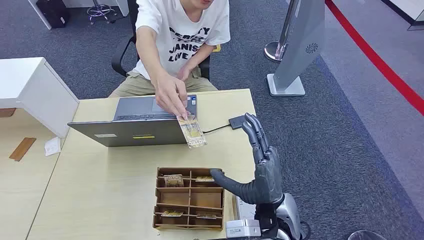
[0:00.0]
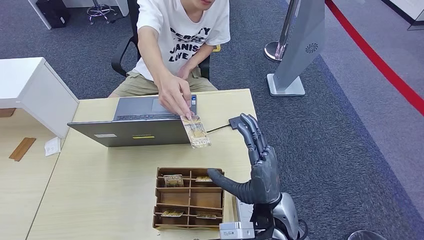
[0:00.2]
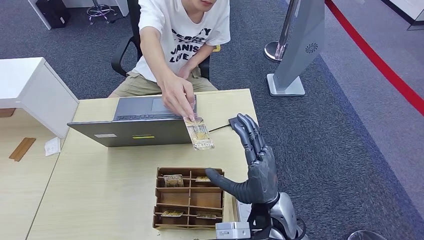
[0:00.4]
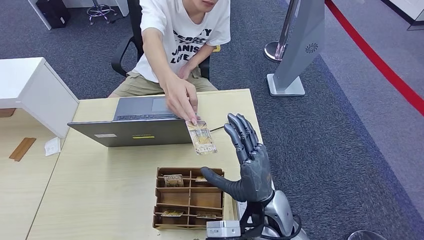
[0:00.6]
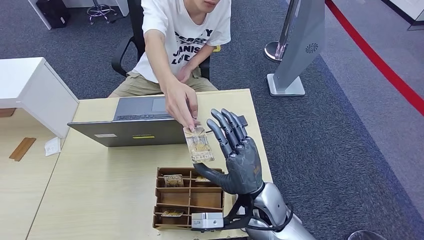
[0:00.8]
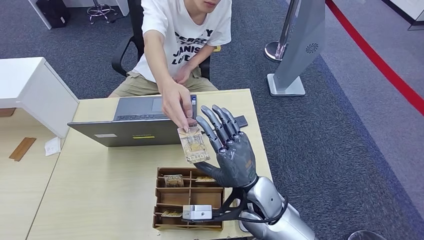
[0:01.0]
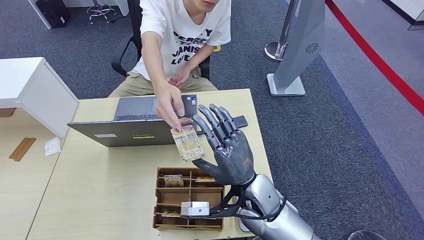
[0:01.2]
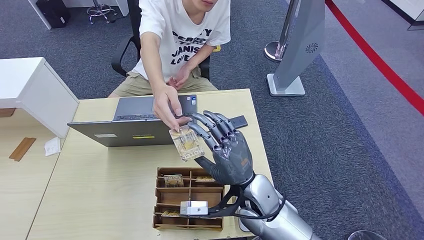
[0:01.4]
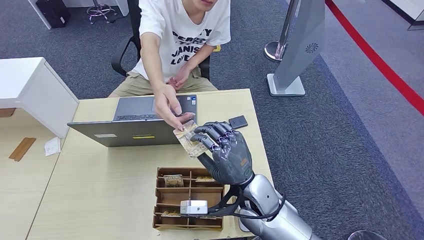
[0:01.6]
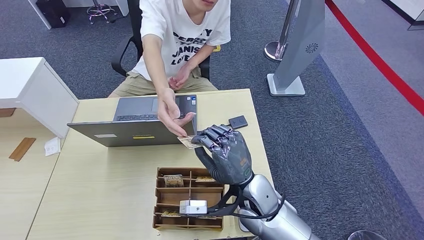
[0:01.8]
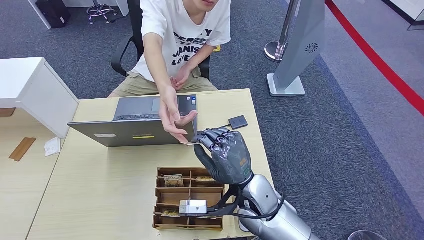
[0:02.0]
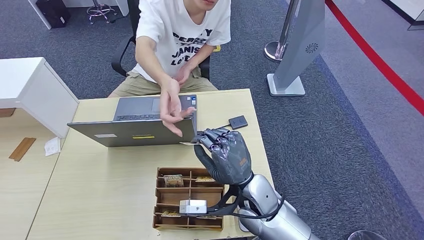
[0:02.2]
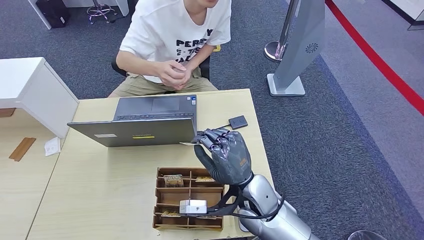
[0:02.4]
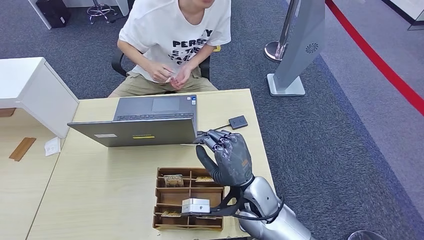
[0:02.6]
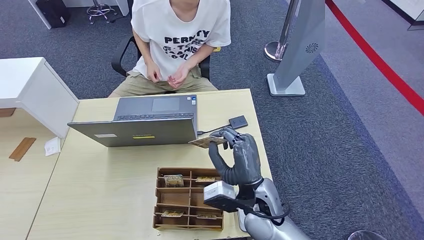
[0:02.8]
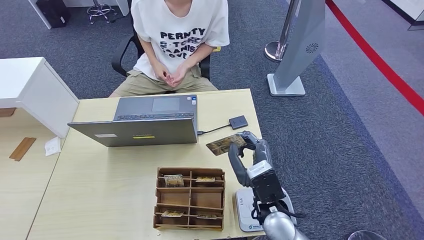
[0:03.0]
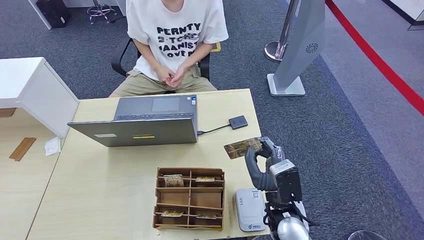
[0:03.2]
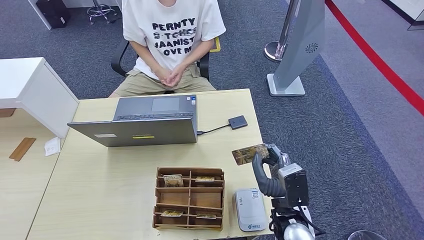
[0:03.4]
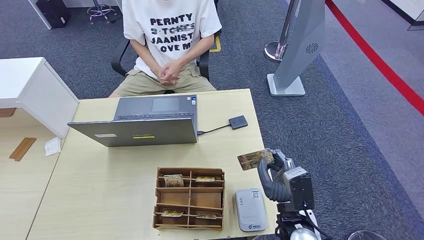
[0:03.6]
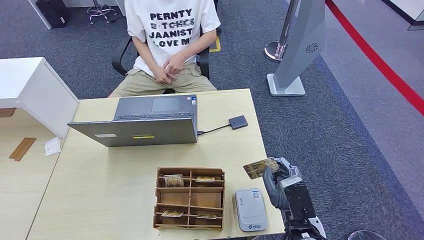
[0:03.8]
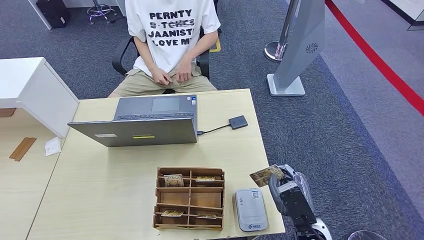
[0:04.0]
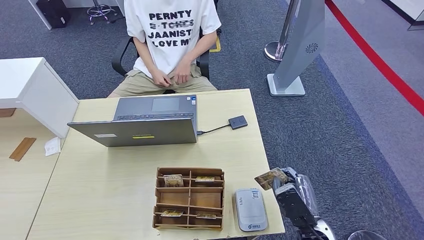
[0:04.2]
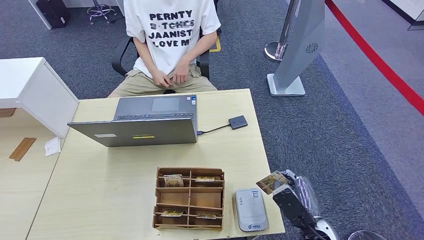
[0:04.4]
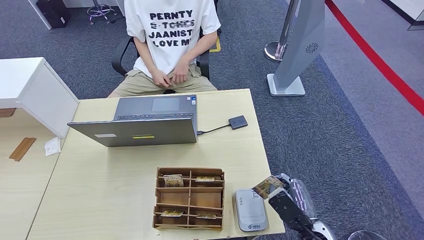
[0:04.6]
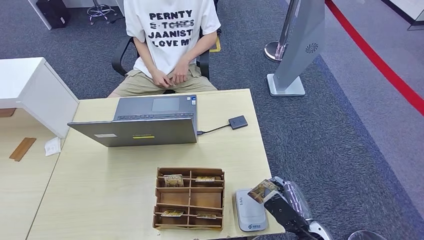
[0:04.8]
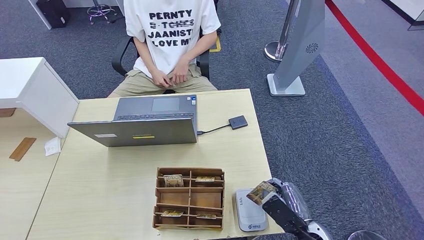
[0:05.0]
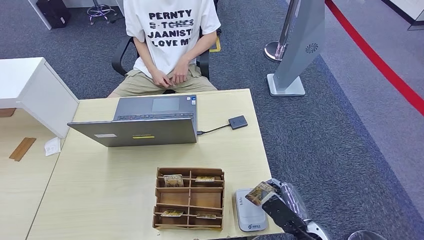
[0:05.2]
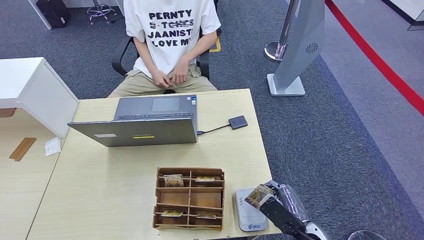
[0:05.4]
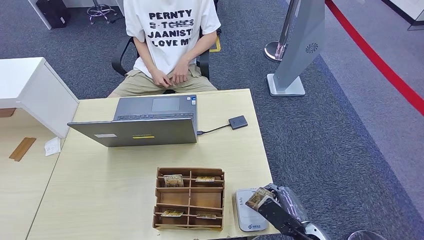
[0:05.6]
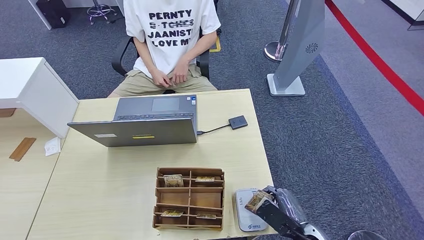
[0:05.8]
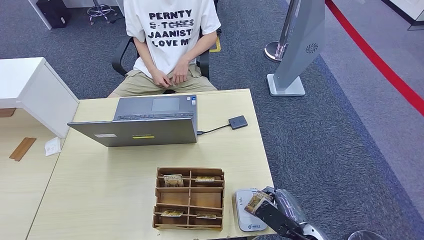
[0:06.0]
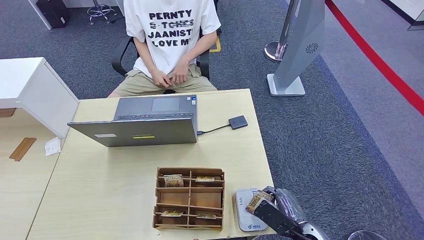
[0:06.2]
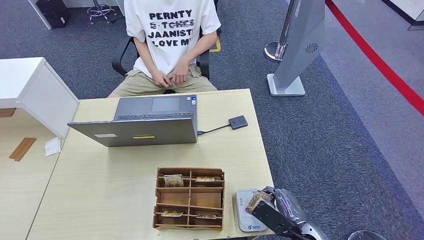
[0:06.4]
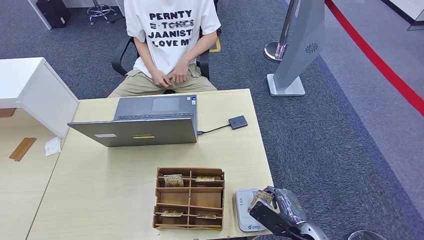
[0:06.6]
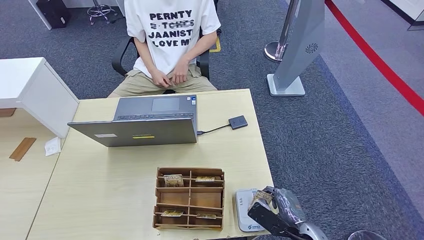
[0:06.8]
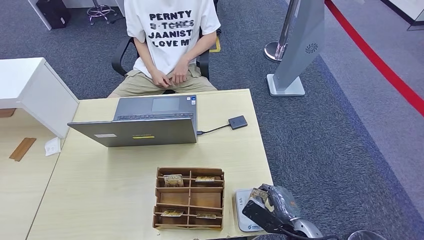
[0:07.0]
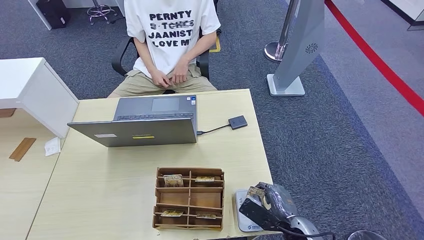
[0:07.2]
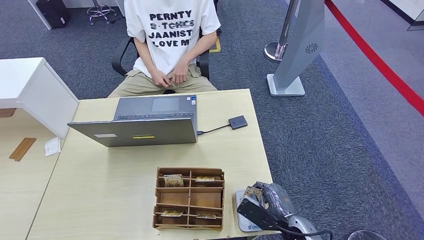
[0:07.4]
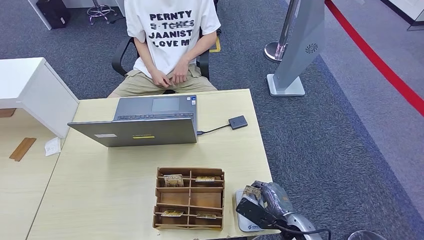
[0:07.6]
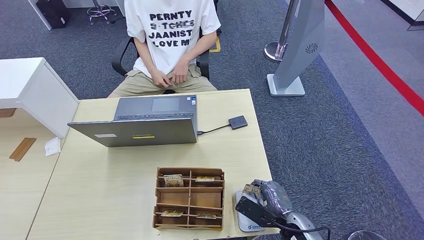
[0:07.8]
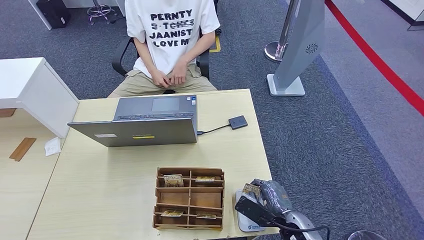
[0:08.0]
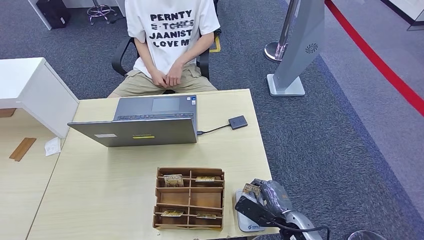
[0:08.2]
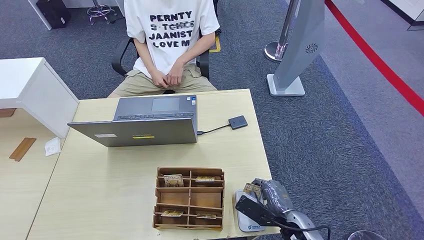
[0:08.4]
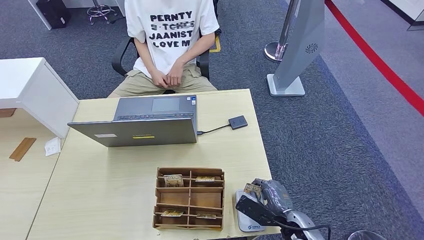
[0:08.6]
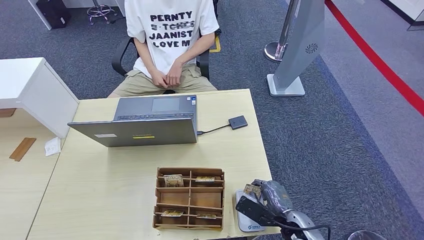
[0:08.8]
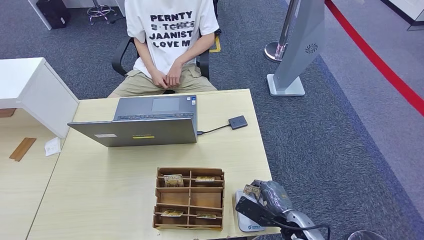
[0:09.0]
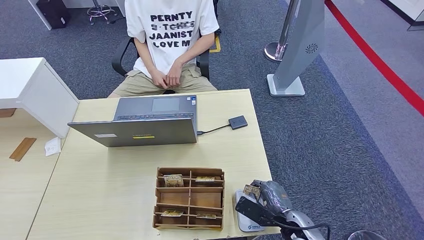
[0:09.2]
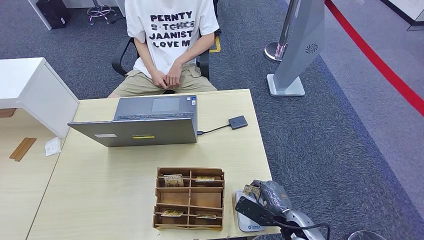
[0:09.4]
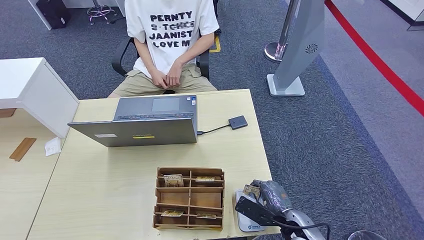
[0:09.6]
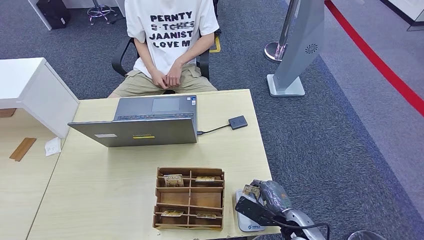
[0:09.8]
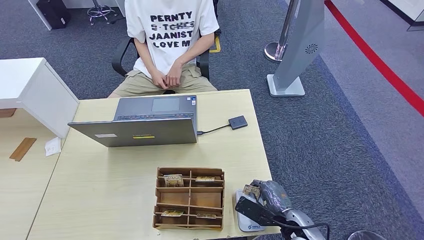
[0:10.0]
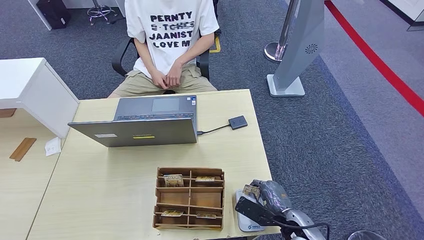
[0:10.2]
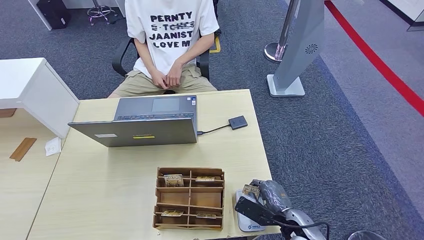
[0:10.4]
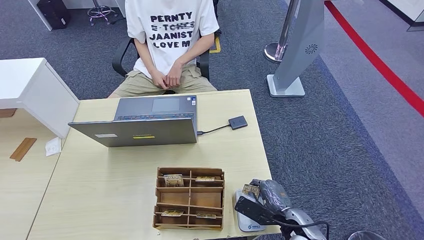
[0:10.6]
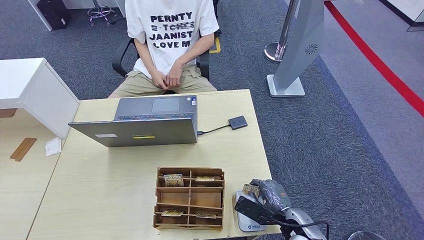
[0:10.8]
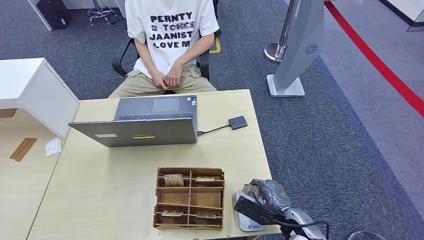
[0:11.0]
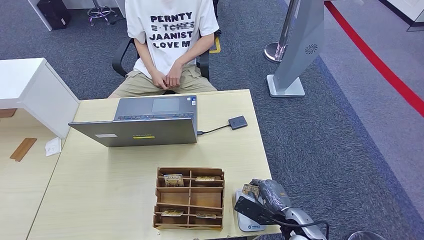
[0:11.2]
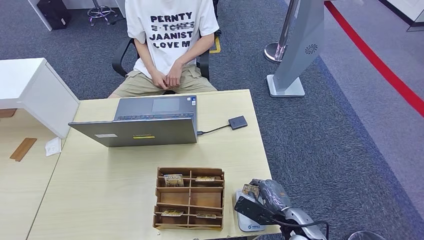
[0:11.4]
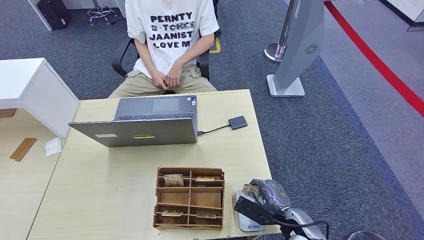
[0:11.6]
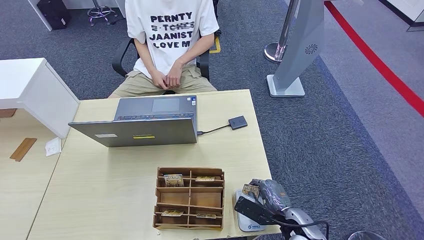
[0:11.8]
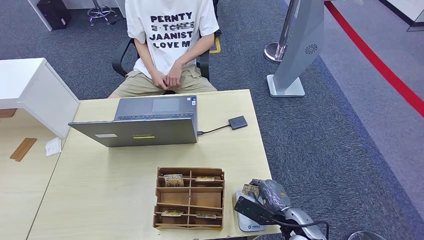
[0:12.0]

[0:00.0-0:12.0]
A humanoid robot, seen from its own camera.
Step, 0:00.0 to 0:02.4: Take the ID card from the person's hand.
Step, 0:02.6 to 0:07.8: Place the ID card on the card reader.
0:03.0 to 0:04.4: The right hand is displaced to the right, backward and downward by roughly 15 cm.
0:04.4 to 0:06.0: The hands move only a little.
0:06.0 to 0:07.6: The hands make only small movements.
0:07.6 to 0:09.0: The two hands keep their place.
0:09.0 to 0:12.0: Both hands stay put.

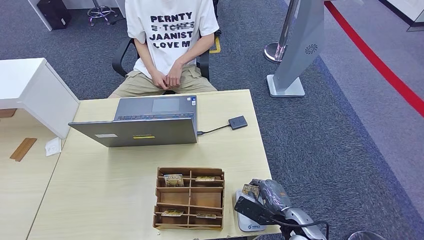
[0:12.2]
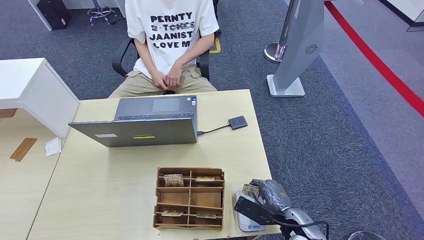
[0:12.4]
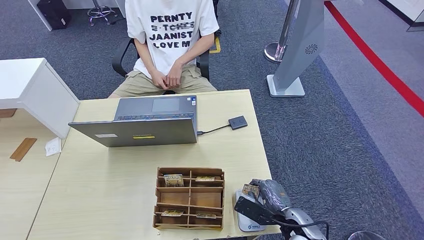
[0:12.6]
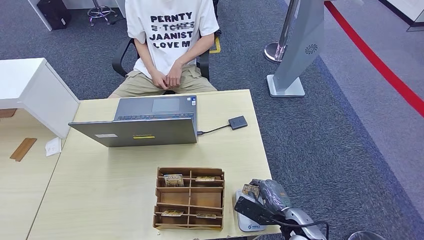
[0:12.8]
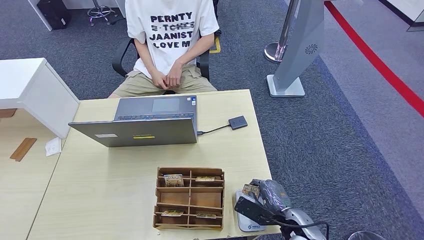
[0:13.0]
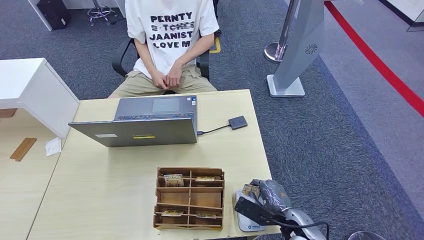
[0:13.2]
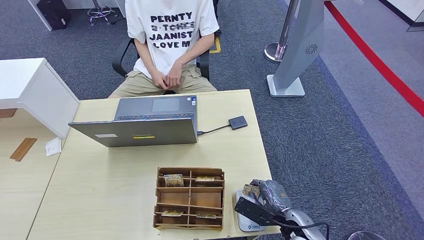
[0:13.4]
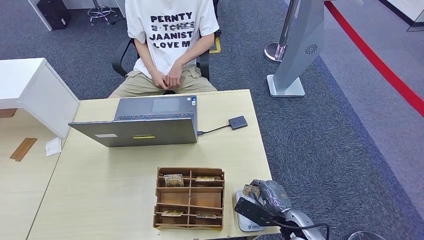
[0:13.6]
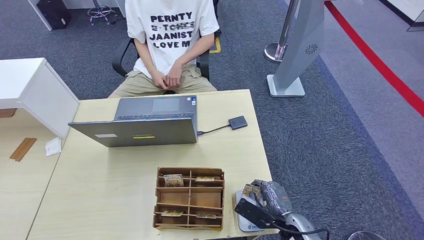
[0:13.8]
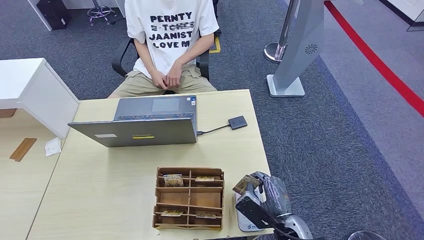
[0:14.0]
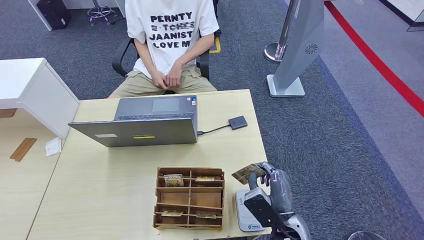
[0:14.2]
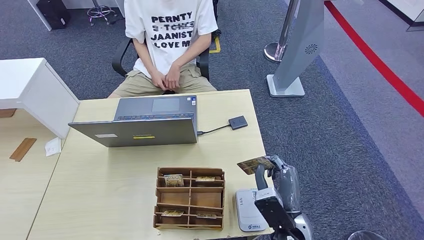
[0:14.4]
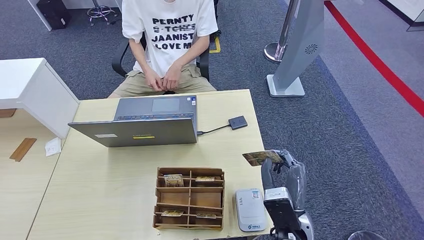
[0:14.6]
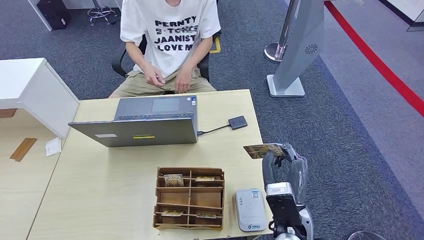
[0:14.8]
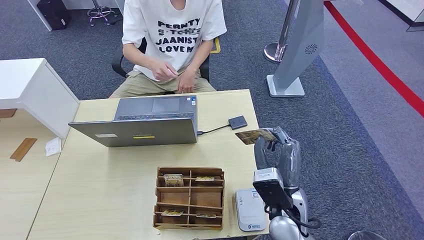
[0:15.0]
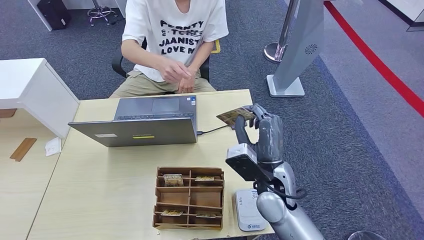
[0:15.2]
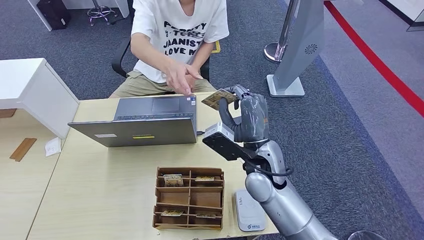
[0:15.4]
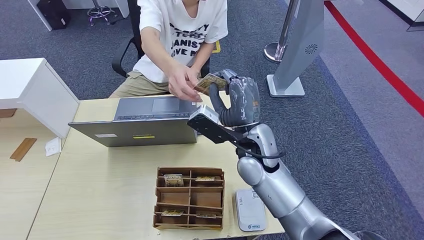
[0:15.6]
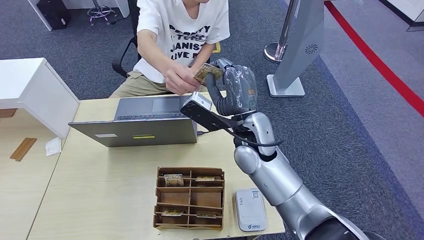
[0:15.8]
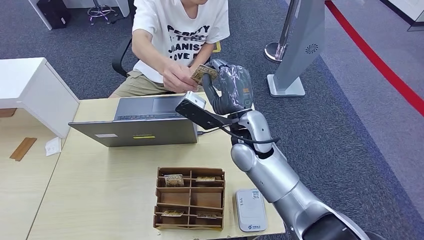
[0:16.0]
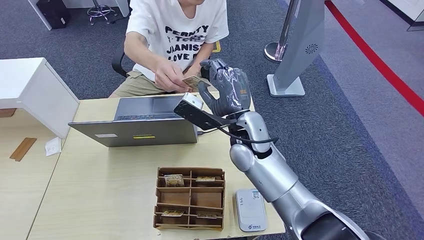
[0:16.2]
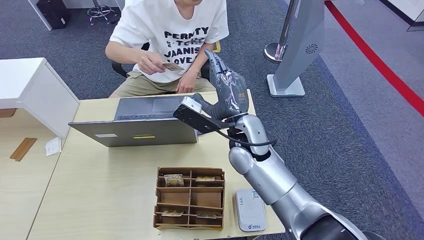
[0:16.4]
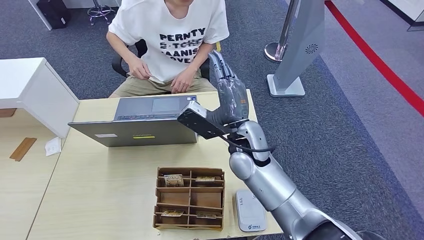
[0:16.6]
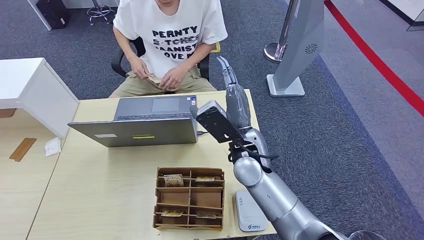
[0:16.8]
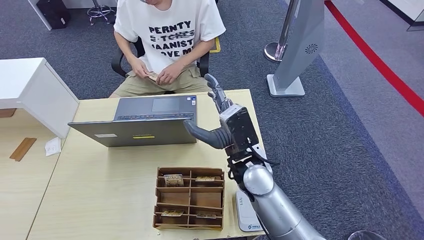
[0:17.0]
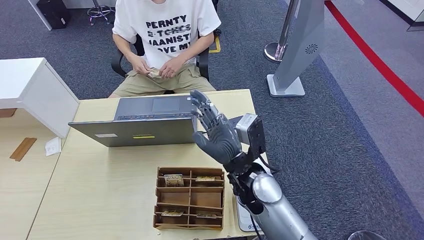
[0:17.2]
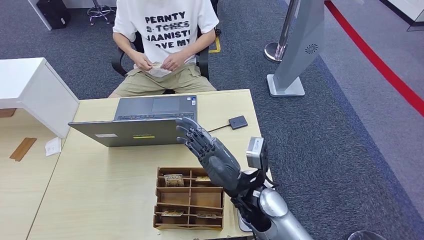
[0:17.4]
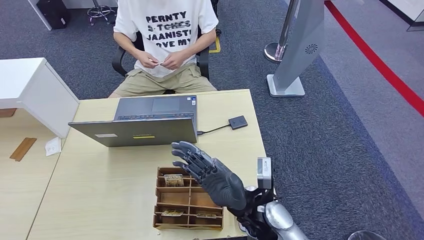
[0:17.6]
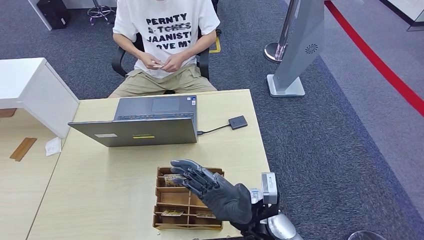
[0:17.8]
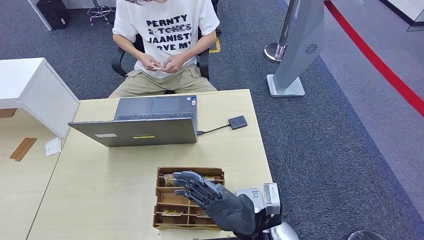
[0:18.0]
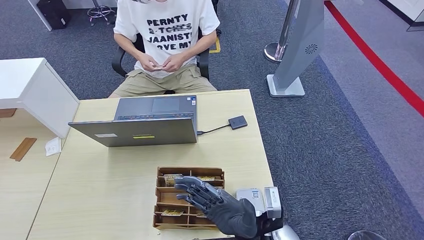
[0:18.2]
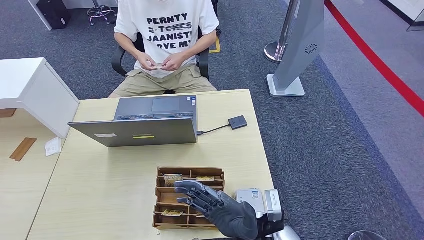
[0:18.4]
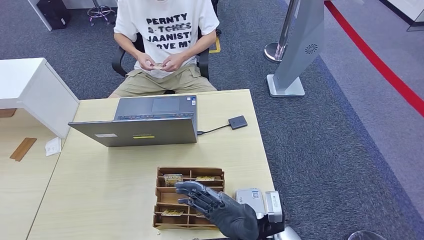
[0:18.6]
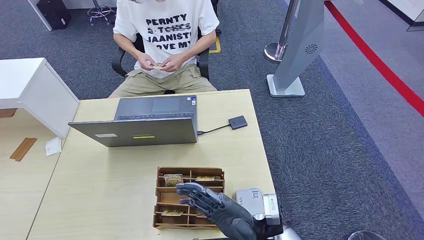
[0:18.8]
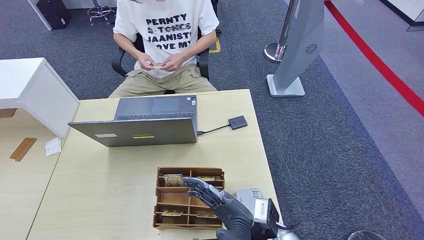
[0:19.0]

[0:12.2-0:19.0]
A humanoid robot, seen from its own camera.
Step, 0:12.2 to 0:16.4: Hand the ID card to the person.
0:12.2 to 0:13.6: The two hands keep their place.
0:13.6 to 0:15.0: The right hand travels upward and to the left by some 15 cm.
0:15.0 to 0:16.2: The right hand moves forward, upward and to the left, roughly 20 cm.
0:16.2 to 0:17.6: The right hand heads backward and downward, covering some 15 cm.
0:17.6 to 0:19.0: The right hand travels downward by approximately 5 cm.
